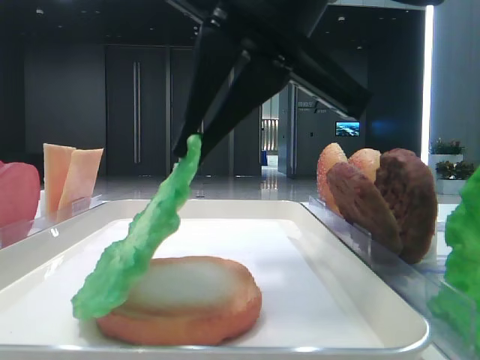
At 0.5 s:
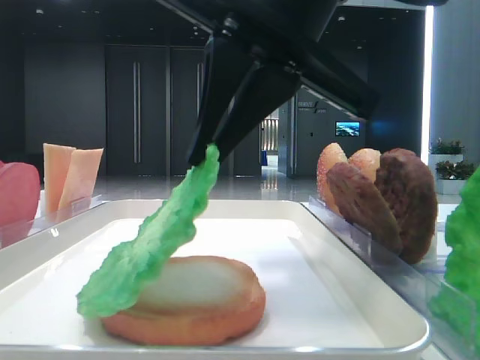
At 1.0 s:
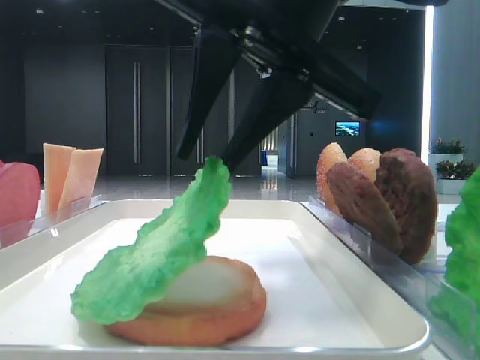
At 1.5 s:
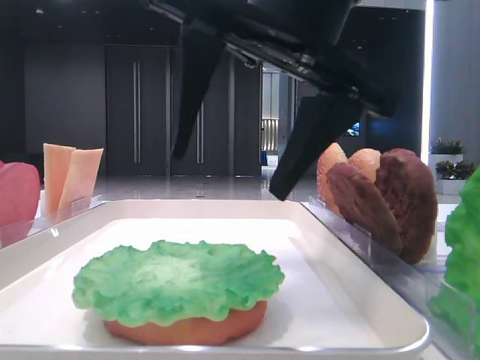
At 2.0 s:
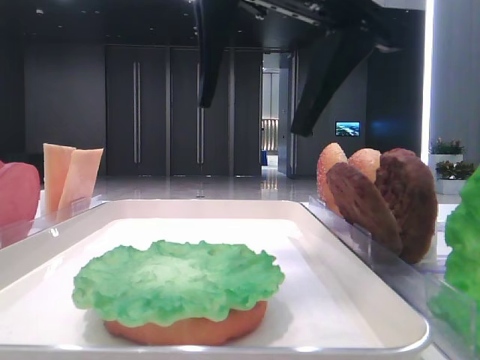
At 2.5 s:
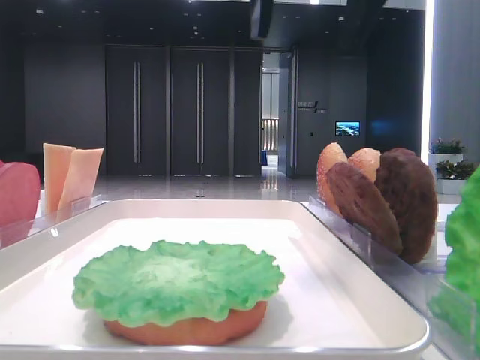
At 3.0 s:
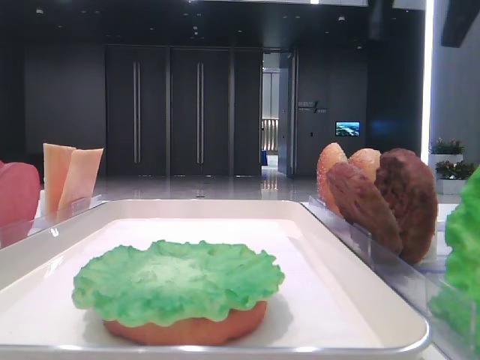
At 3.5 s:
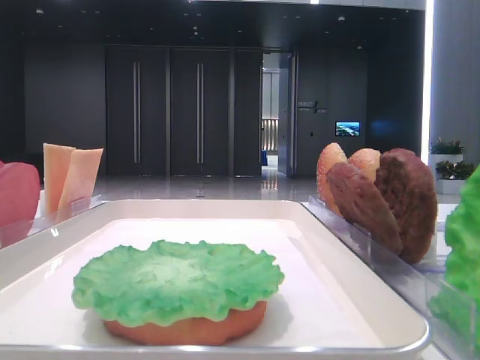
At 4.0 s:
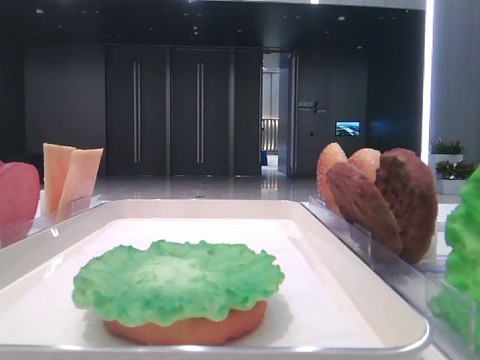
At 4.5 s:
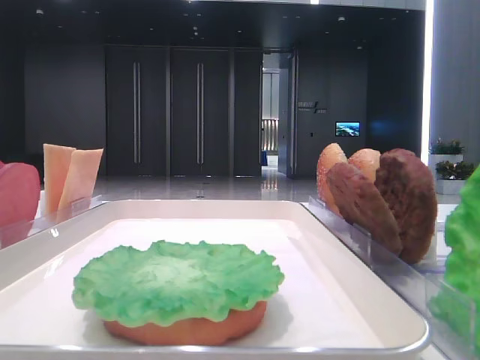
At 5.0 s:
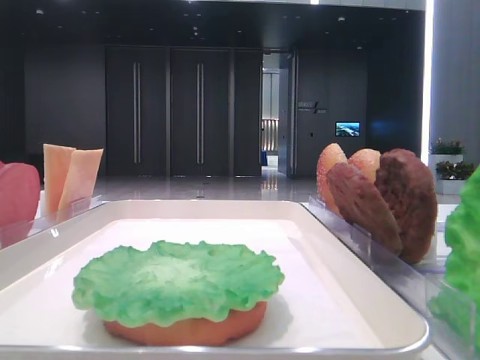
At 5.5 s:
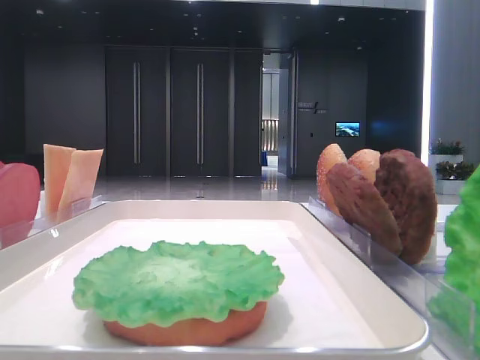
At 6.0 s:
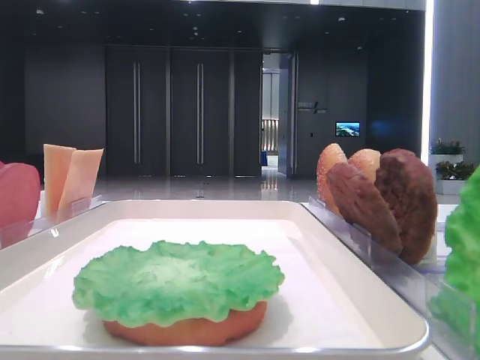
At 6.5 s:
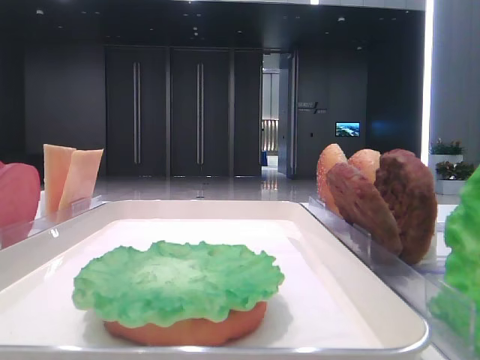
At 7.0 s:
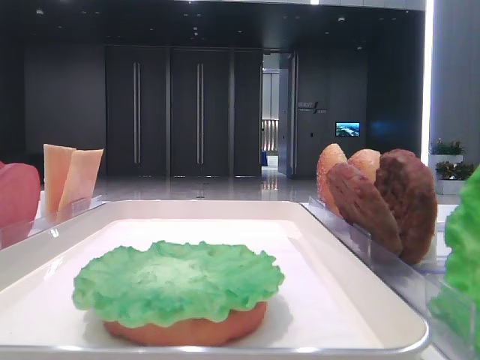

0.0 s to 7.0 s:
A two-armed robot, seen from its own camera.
0.0 to 2.0 s: The right gripper opens its fingers.
2.0 to 3.5 s: The right gripper travels to the right by approximately 25 cm.

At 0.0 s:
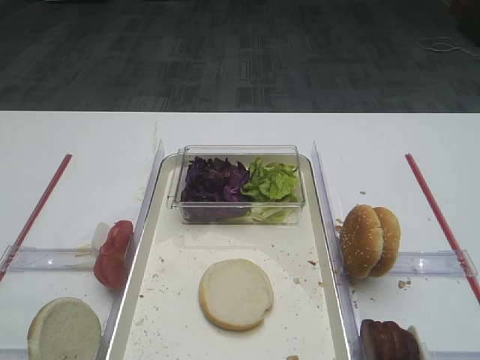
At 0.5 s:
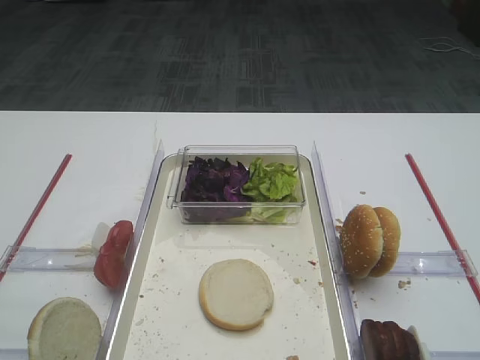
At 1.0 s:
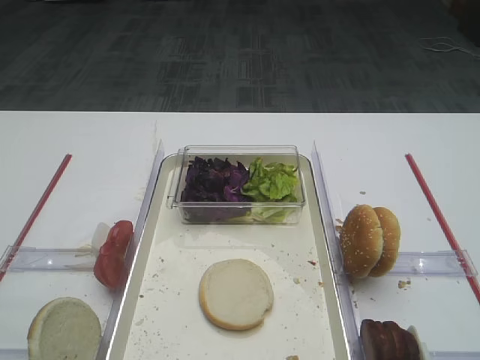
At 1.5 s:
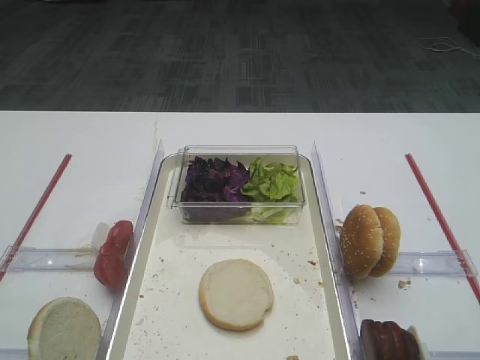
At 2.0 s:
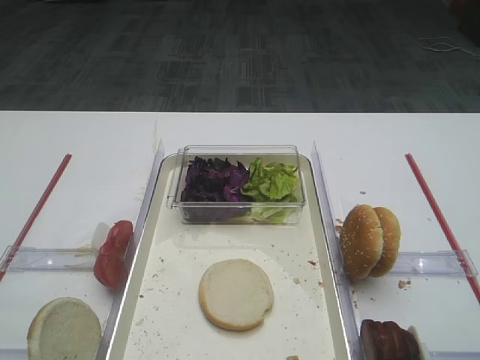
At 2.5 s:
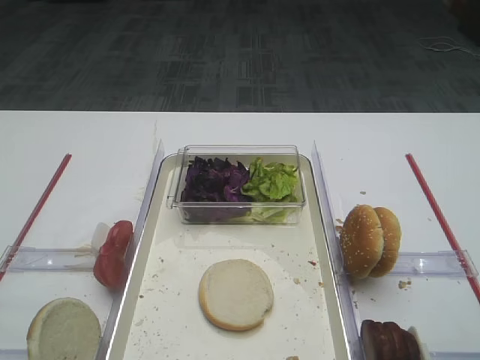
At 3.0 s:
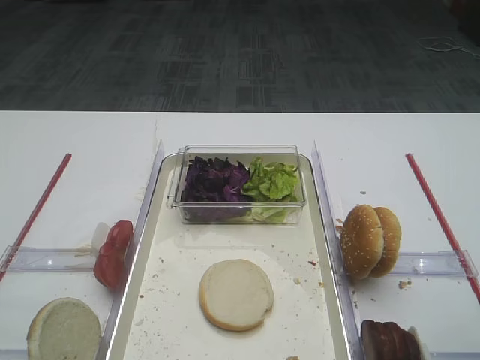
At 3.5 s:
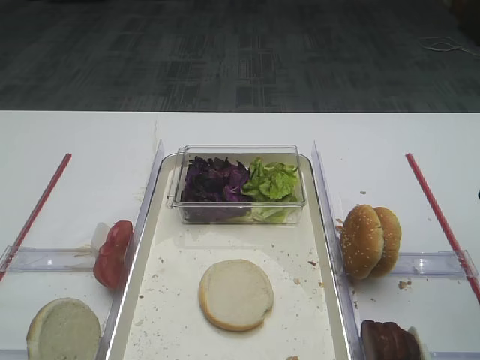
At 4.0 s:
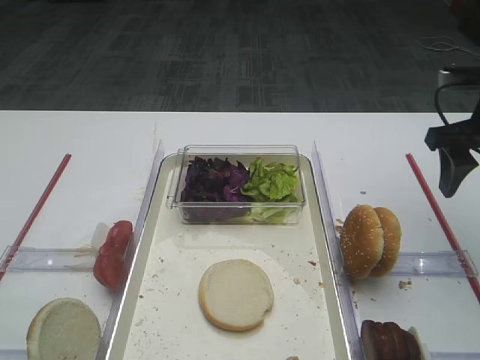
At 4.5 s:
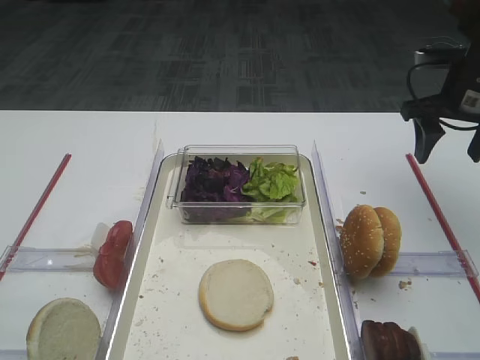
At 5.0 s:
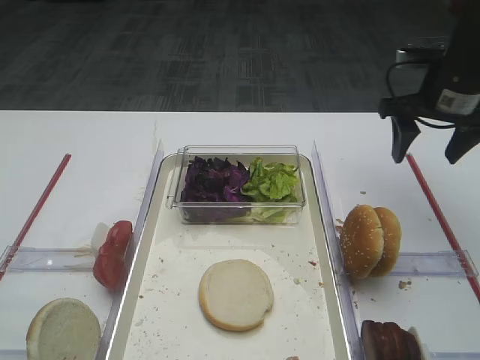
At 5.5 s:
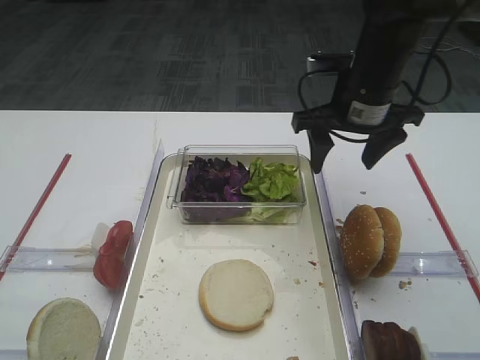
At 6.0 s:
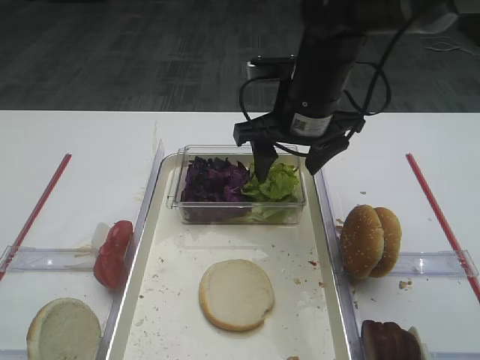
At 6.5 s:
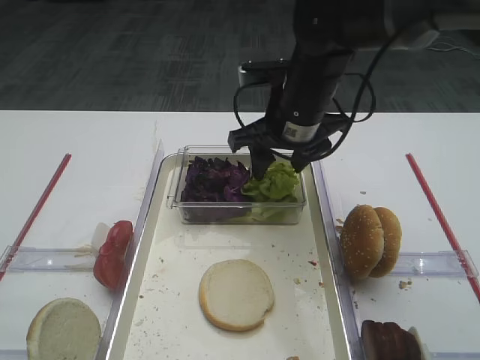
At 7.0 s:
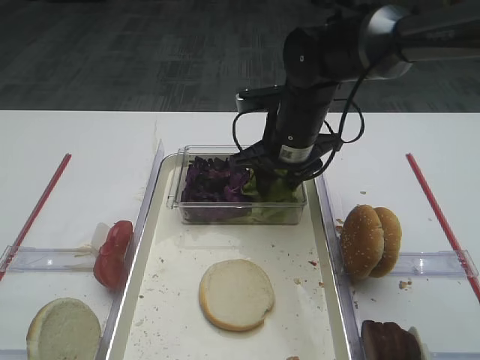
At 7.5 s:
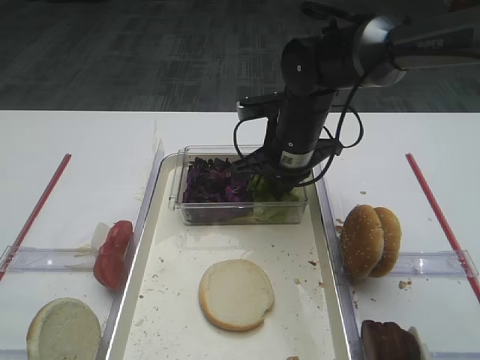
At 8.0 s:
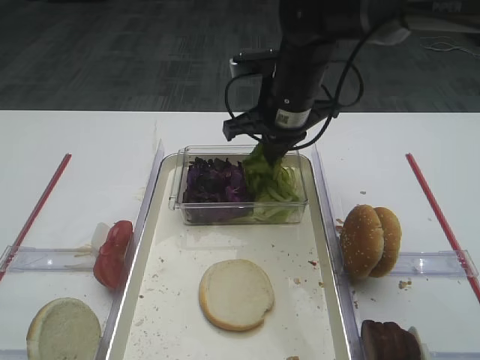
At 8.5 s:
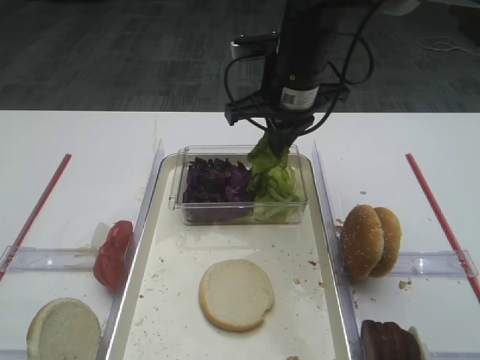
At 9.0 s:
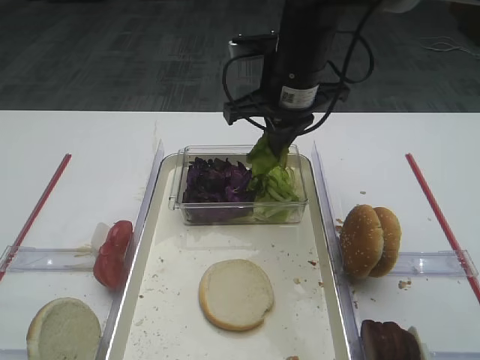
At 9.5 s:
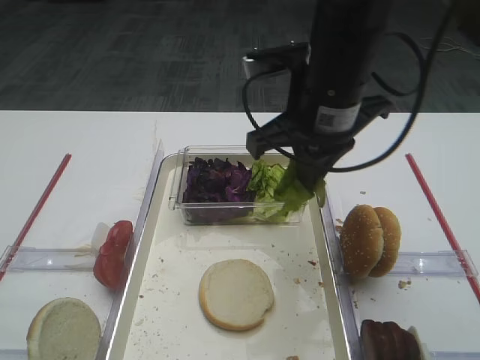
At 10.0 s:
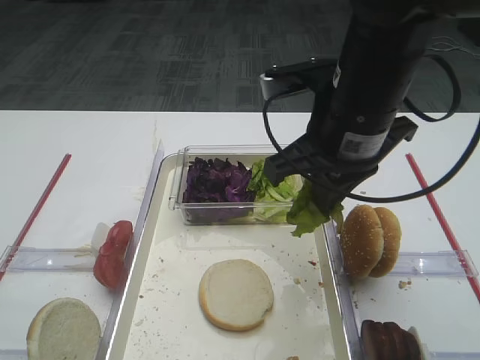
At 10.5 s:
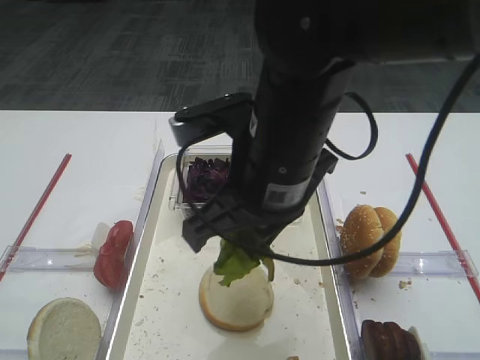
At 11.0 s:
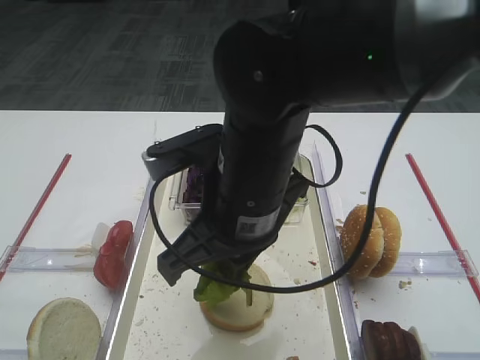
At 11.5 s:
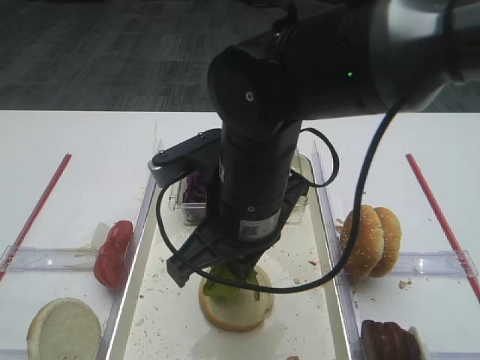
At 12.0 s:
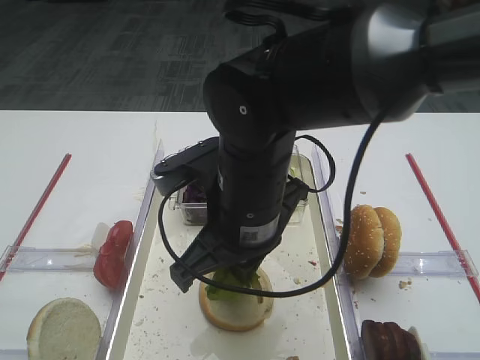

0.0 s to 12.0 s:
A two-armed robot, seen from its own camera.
Step, 0.0 to 8.0 s: Pick up the lettuce leaf with the right gripper.
2.0 to 4.0 s: The right gripper moves forward, about 25 cm.
4.0 to 6.0 s: The right gripper moves to the left, some 20 cm.
6.0 to 8.0 s: The right gripper closes up.
8.0 to 10.0 s: The right gripper is displaced backward and upward by about 15 cm.
10.0 to 12.0 s: The right gripper moves to the left and downward, some 10 cm.

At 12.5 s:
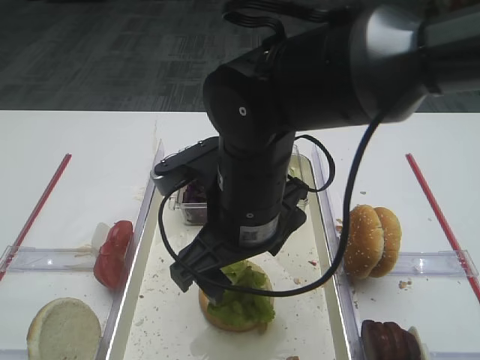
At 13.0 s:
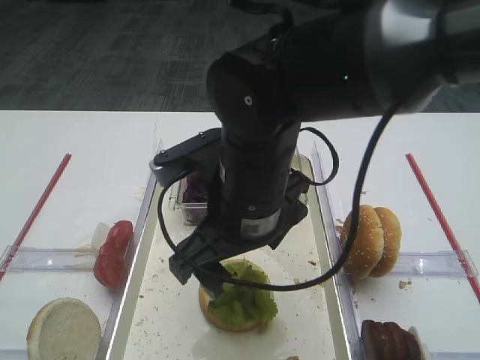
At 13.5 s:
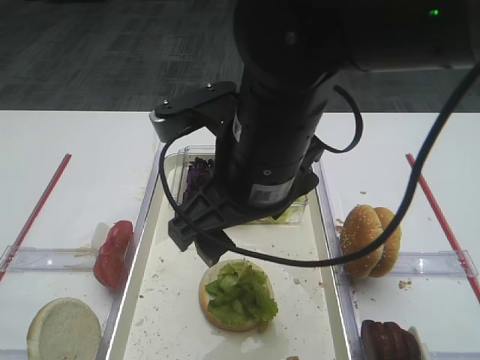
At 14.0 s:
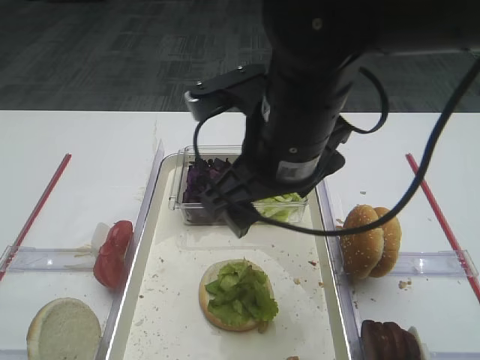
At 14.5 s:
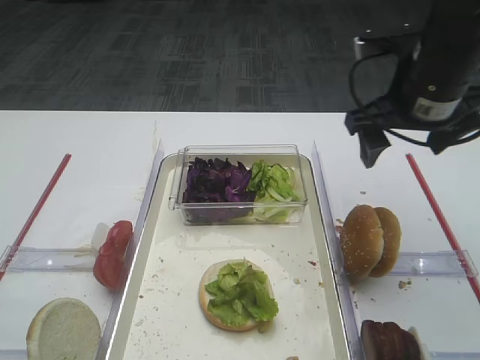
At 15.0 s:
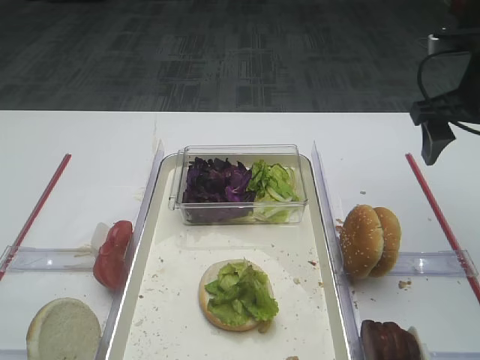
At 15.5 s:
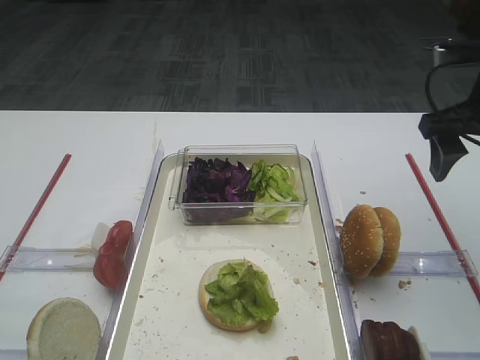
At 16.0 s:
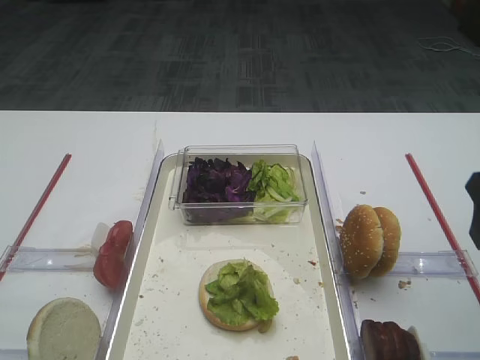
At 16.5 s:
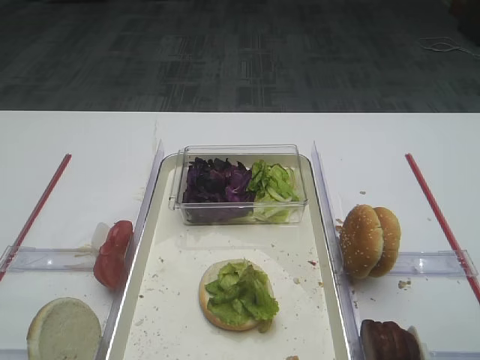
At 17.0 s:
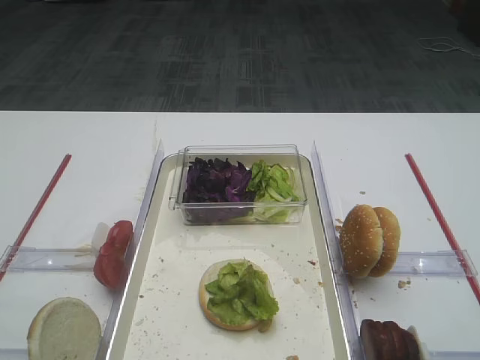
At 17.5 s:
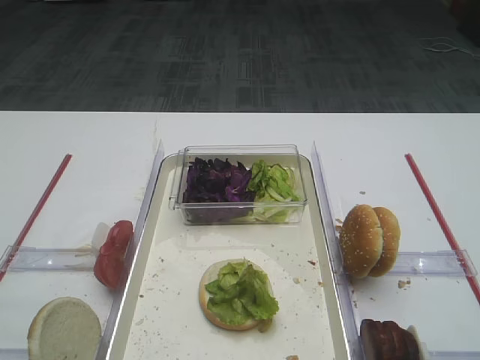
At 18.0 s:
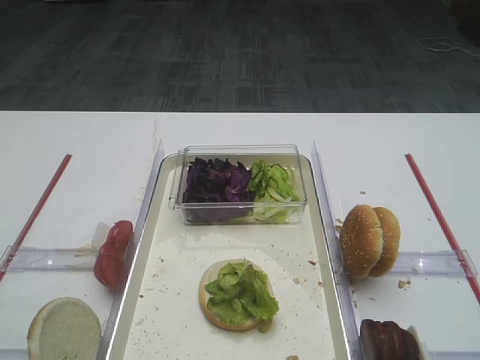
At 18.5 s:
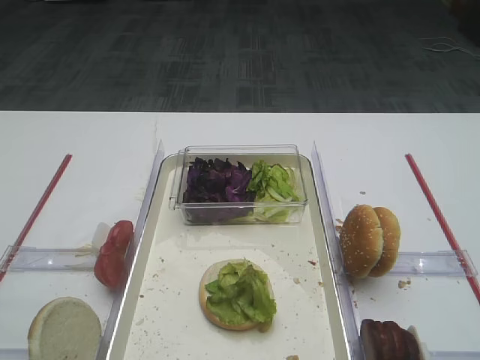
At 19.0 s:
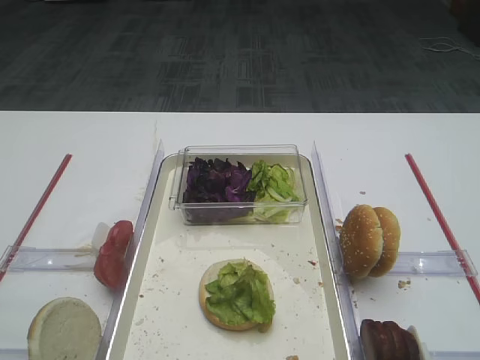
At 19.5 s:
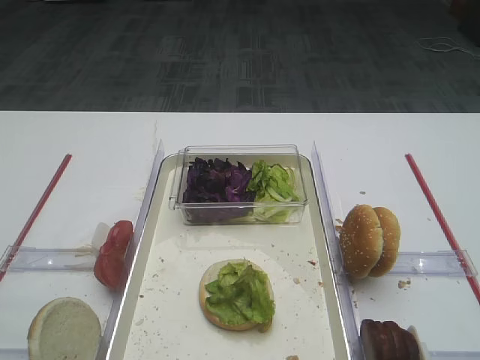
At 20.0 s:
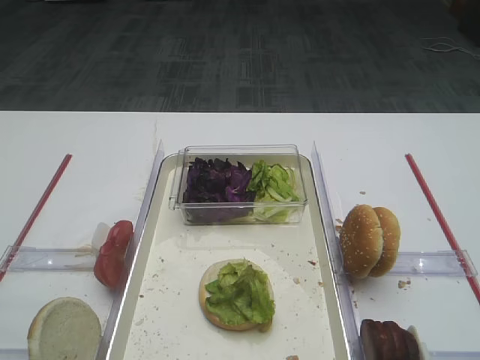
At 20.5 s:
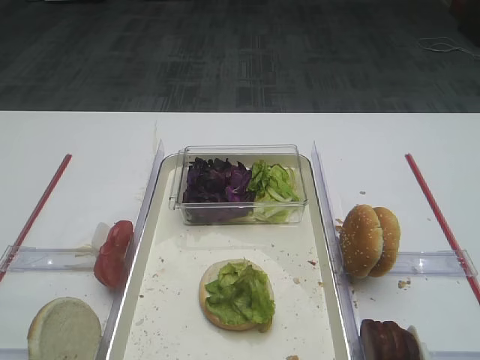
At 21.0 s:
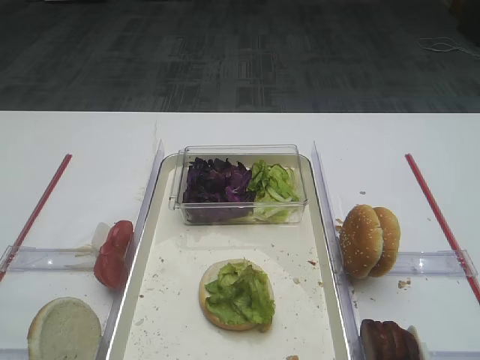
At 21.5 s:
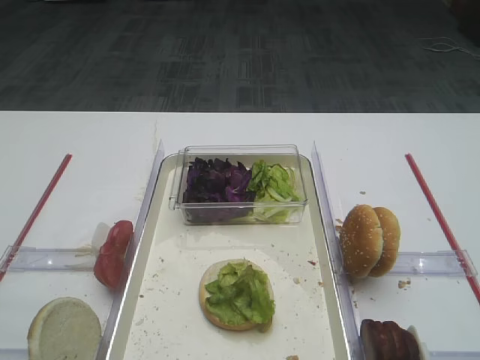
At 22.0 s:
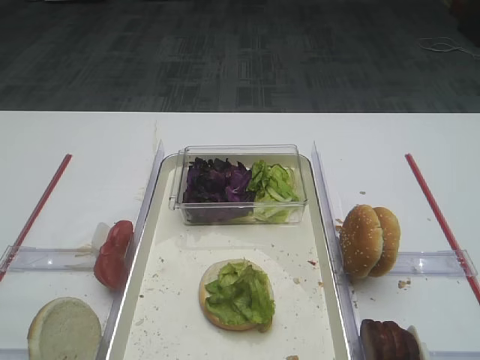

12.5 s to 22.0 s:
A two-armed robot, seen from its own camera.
12.5 to 14.5 s: The right gripper shifts some 20 cm to the right and forward.
14.5 to 16.5 s: The right gripper heads backward and to the right, covering approximately 25 cm.
20.0 to 22.0 s: The two grippers keep their place.
